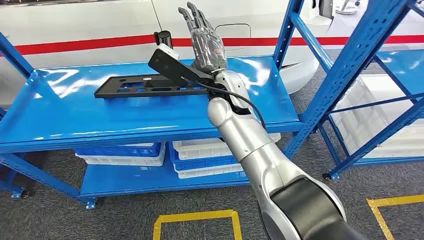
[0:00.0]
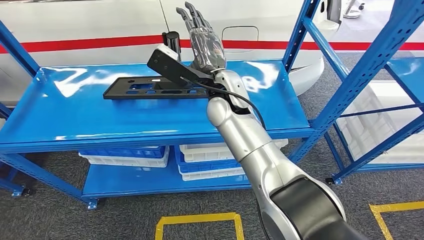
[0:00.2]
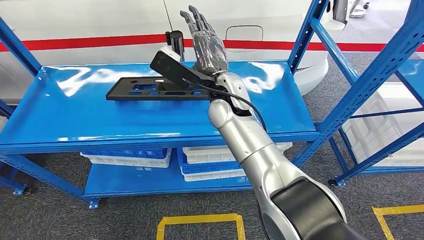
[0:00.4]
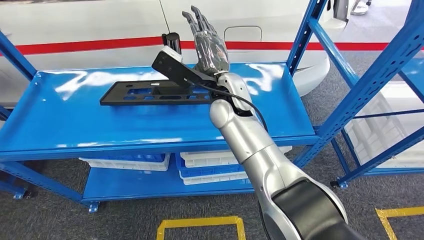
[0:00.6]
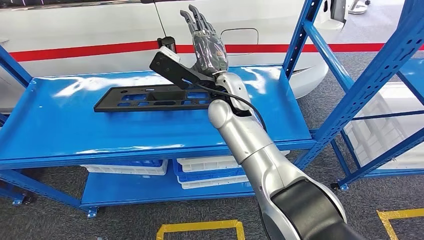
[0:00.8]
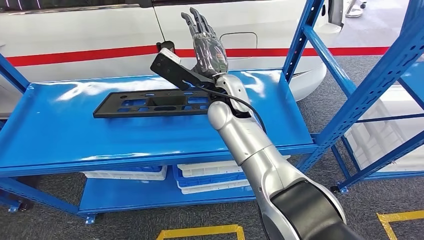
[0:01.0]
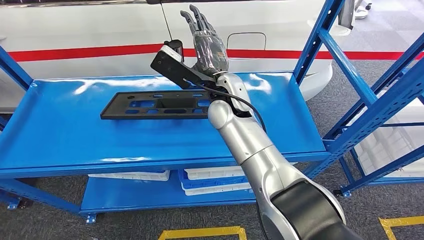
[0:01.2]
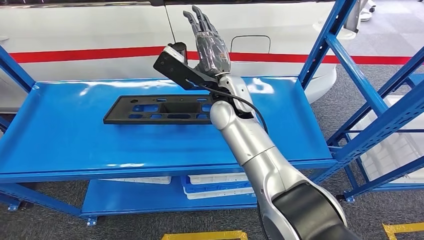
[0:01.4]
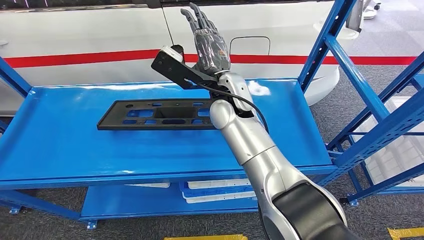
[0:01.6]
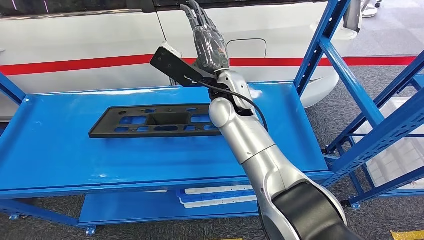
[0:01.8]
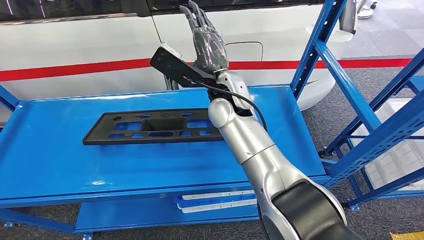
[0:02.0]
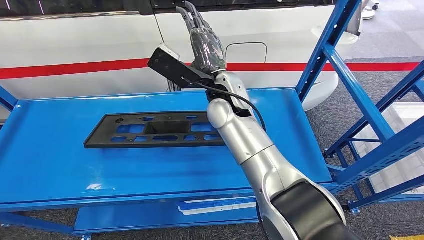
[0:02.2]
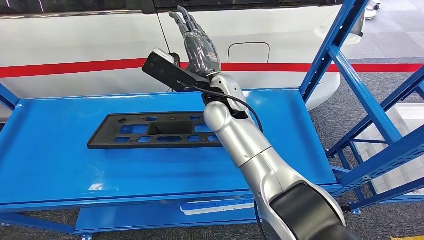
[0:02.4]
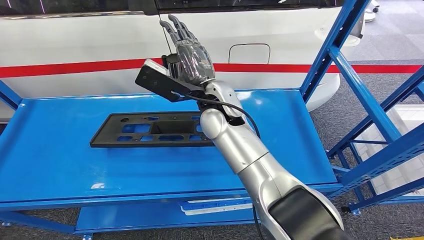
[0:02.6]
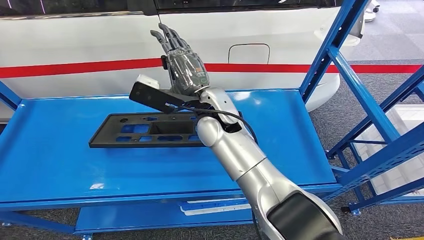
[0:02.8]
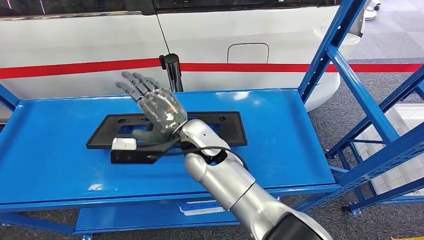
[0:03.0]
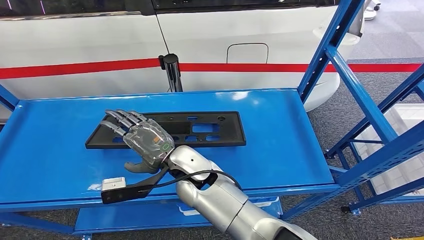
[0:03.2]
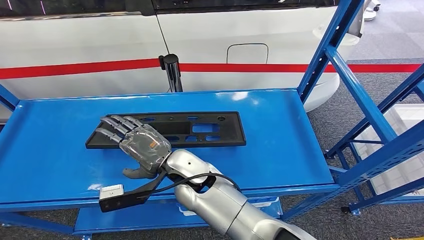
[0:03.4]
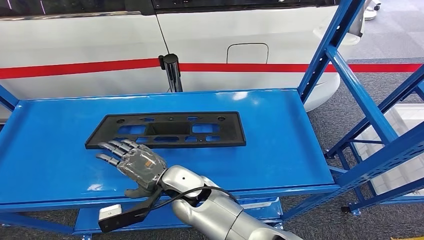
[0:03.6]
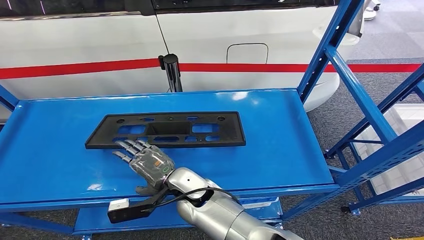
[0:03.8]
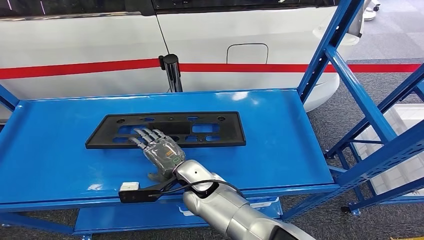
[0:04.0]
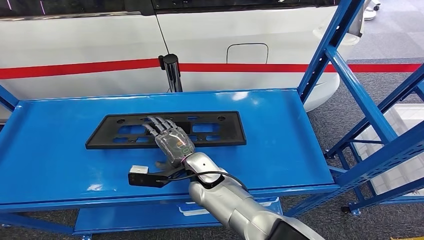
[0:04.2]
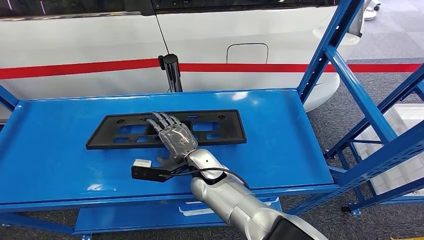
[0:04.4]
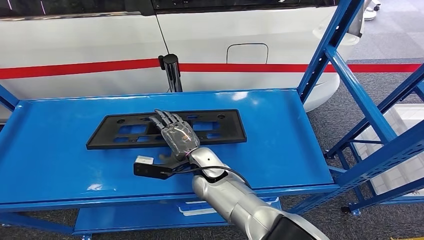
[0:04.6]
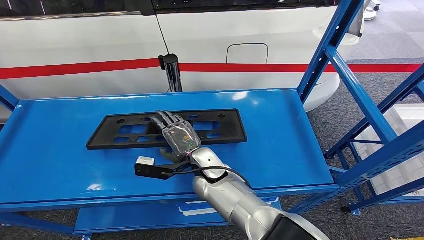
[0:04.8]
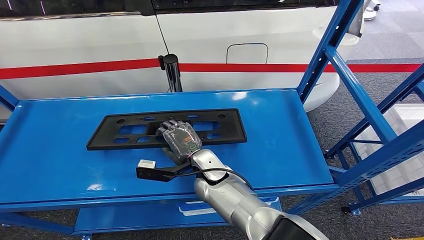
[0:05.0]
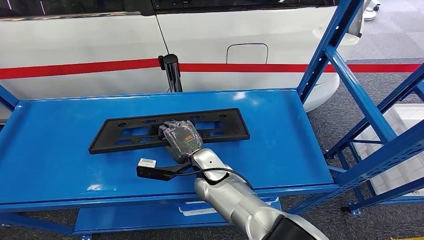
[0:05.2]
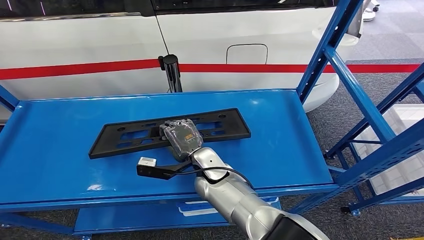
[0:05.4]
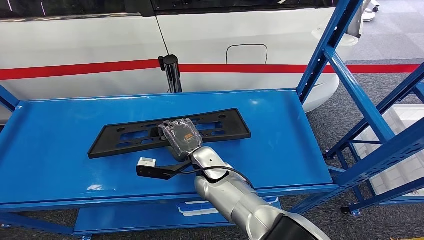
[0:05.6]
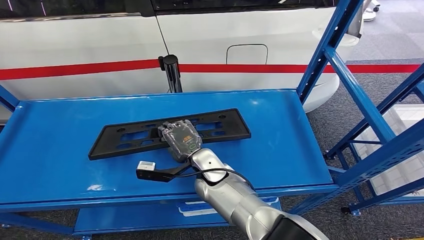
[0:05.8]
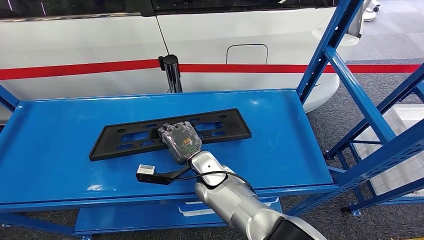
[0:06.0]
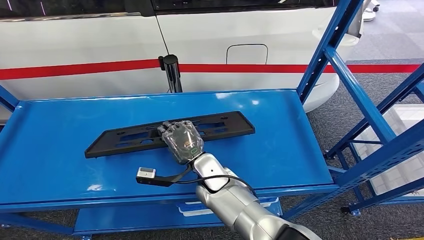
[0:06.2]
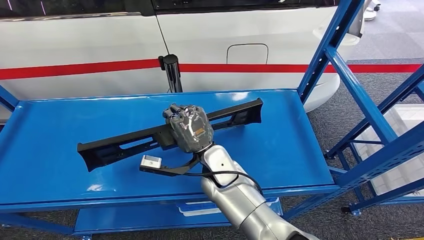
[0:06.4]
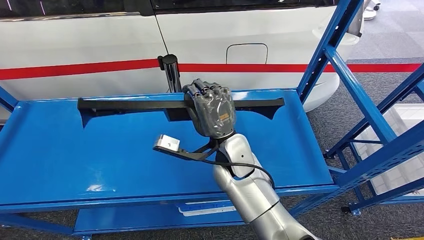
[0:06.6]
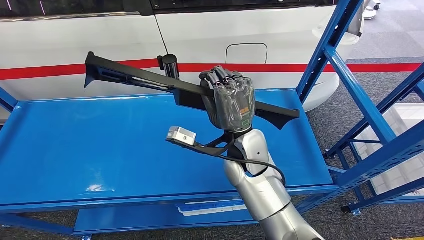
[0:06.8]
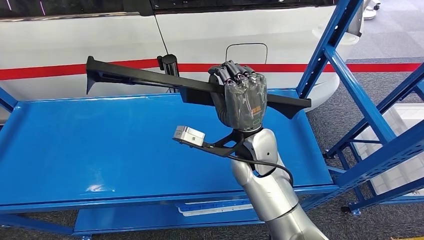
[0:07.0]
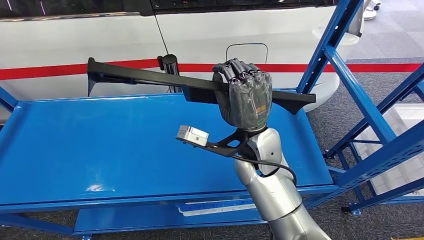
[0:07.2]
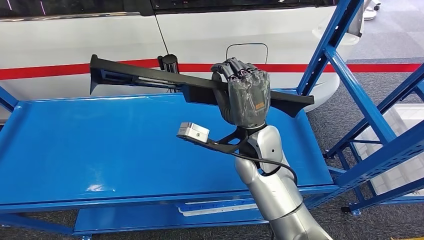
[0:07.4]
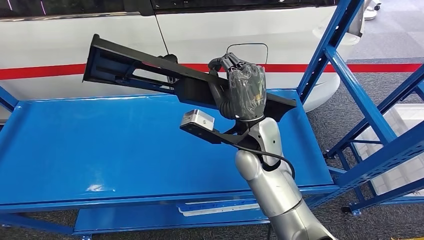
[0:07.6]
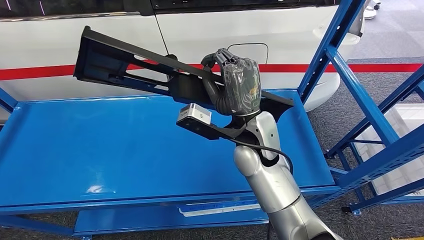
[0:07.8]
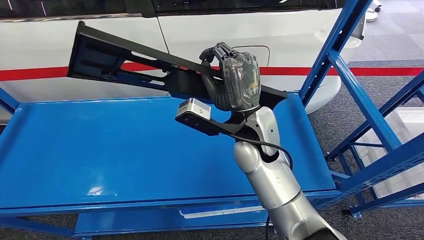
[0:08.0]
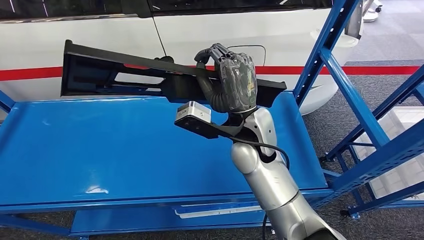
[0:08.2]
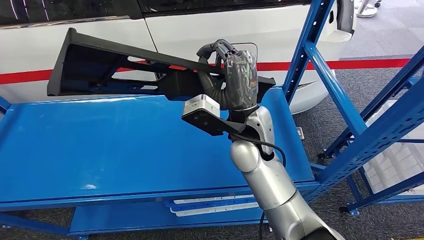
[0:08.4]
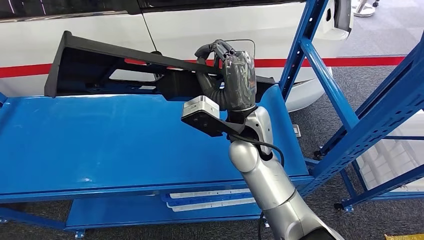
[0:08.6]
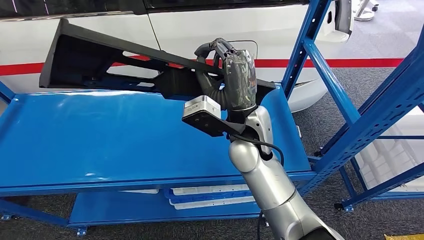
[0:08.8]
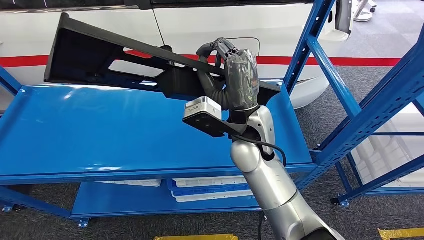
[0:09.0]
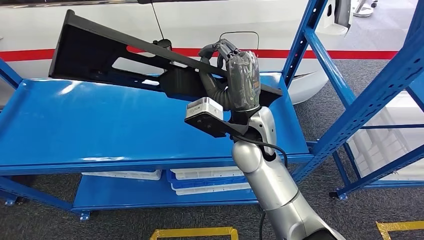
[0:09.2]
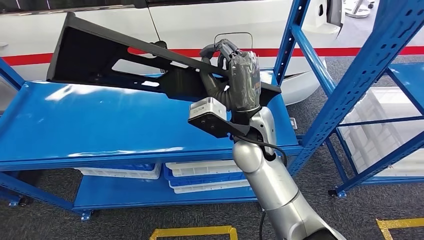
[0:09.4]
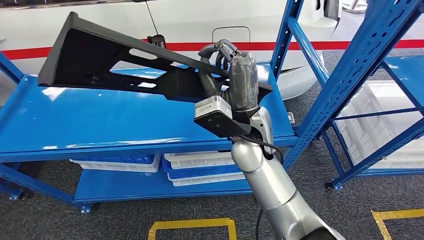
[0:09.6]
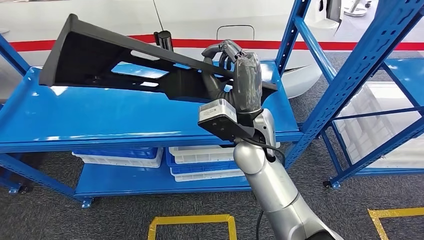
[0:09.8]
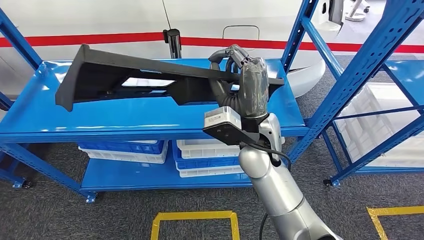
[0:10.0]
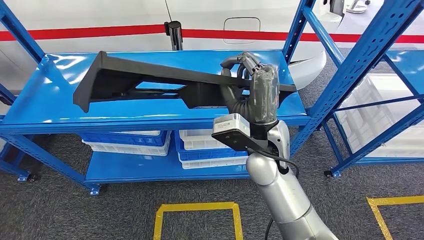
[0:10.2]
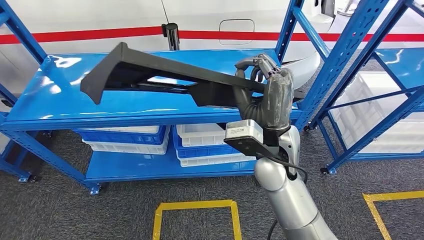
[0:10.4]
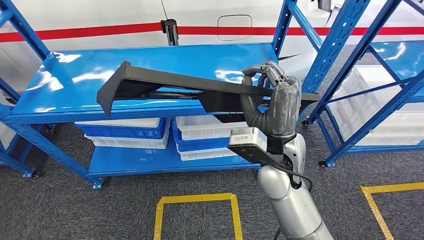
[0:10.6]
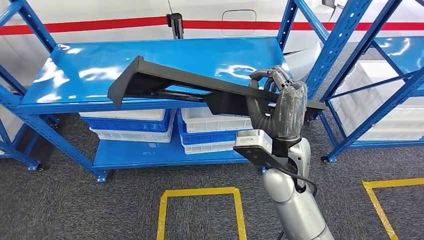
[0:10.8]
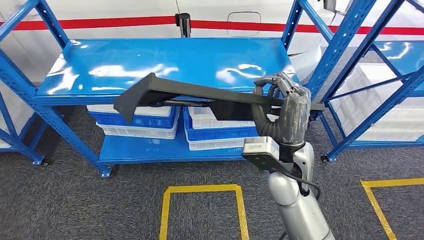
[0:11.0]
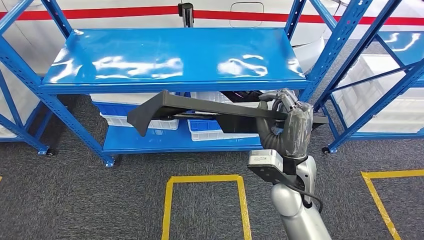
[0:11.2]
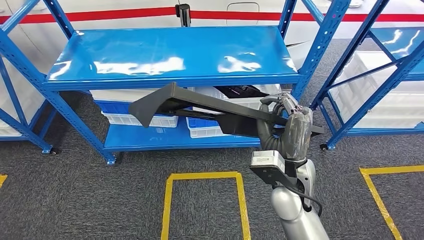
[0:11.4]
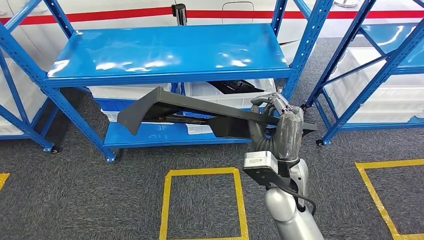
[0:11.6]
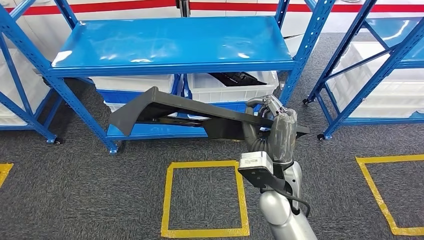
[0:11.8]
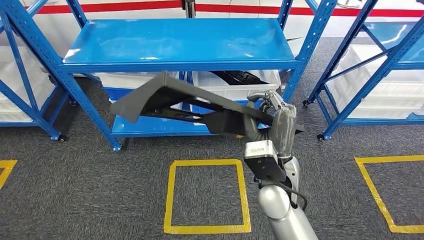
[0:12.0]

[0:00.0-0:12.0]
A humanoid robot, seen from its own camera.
Step, 0:00.0 to 0:11.4: Pick up the large material from the shelf.
0:03.0 to 0:04.4: The right hand is displaced downward by roughly 10 cm.

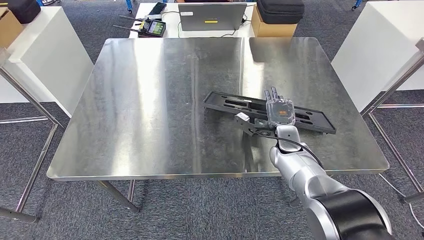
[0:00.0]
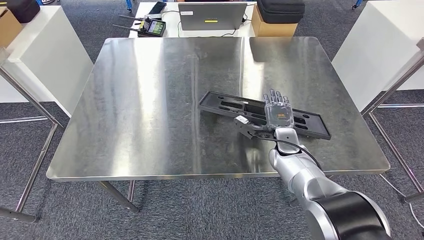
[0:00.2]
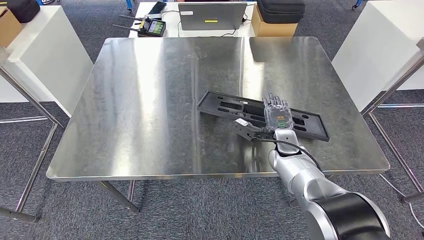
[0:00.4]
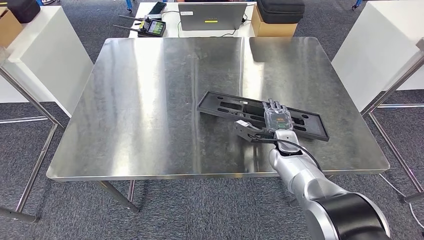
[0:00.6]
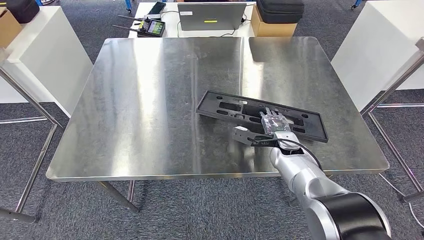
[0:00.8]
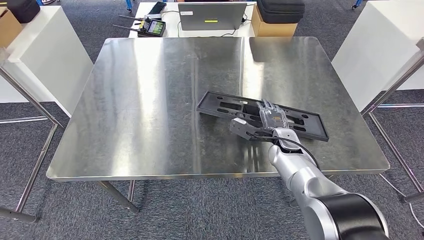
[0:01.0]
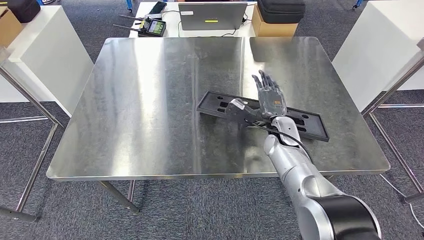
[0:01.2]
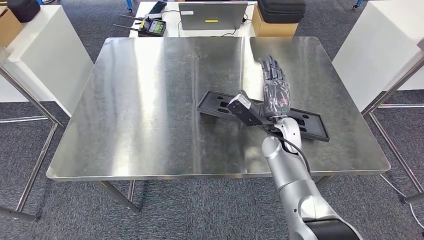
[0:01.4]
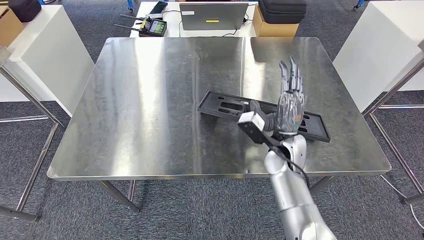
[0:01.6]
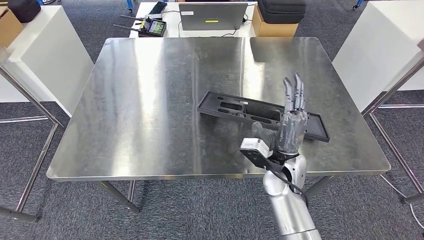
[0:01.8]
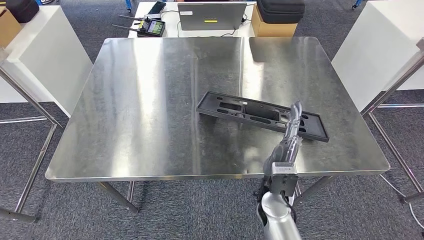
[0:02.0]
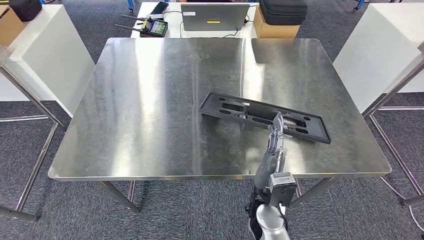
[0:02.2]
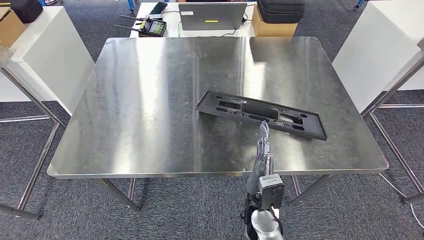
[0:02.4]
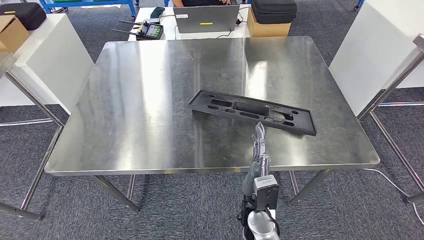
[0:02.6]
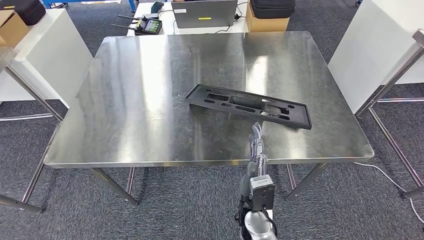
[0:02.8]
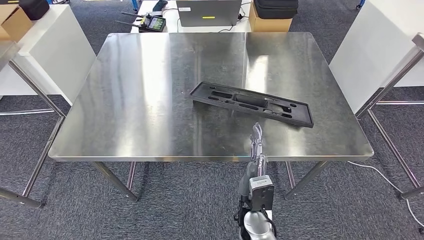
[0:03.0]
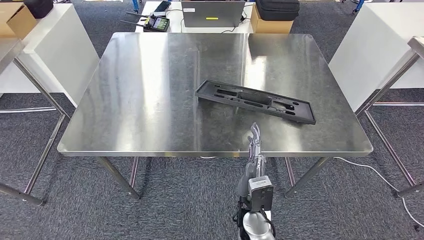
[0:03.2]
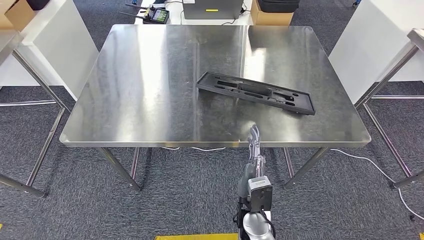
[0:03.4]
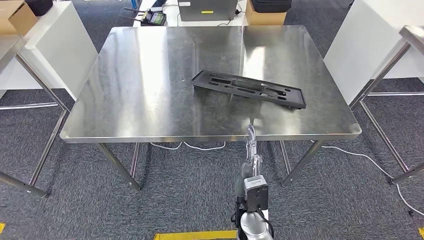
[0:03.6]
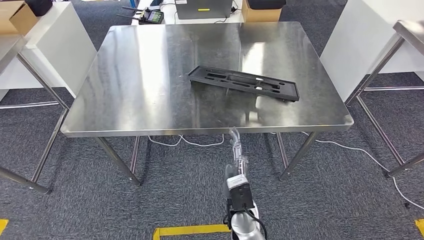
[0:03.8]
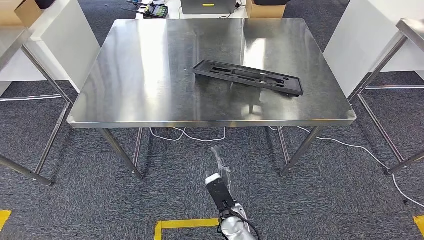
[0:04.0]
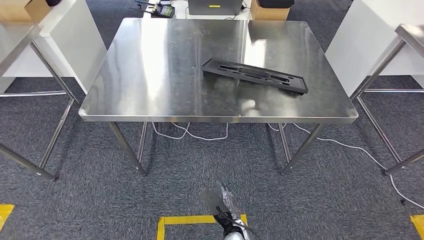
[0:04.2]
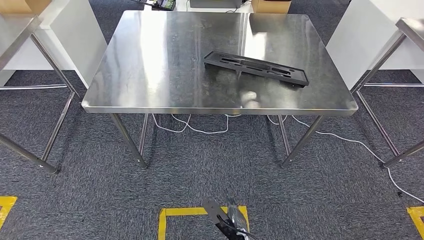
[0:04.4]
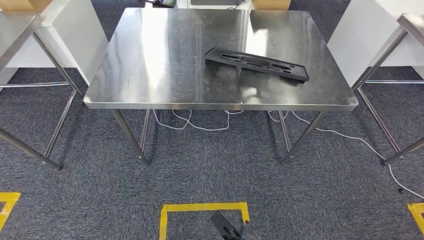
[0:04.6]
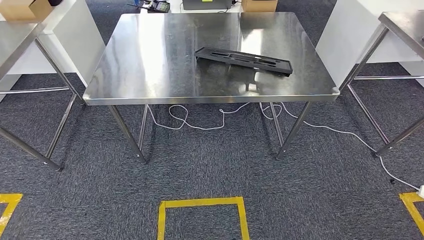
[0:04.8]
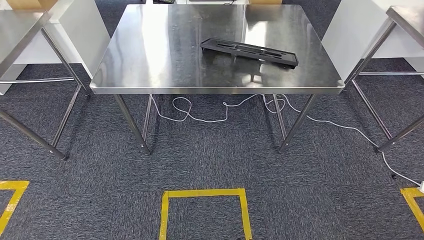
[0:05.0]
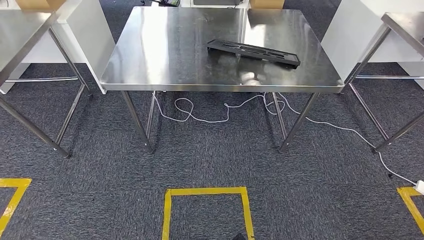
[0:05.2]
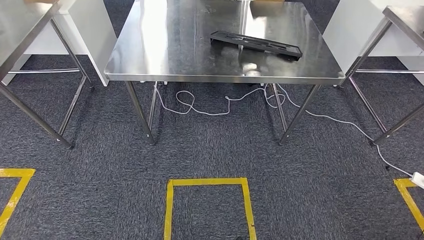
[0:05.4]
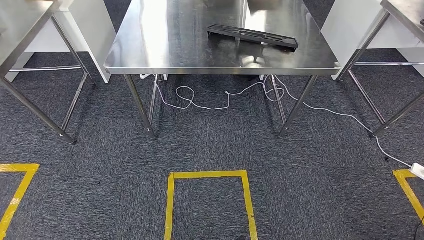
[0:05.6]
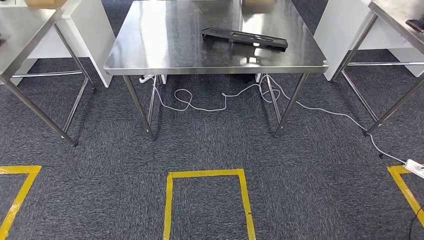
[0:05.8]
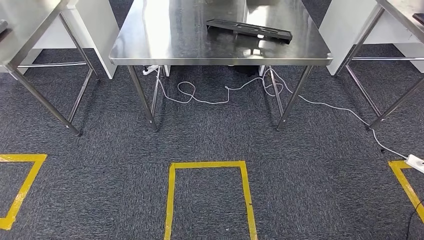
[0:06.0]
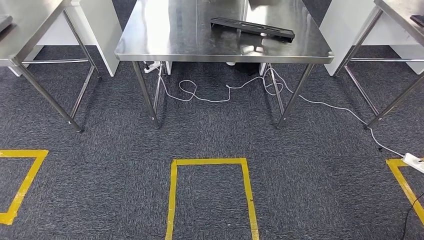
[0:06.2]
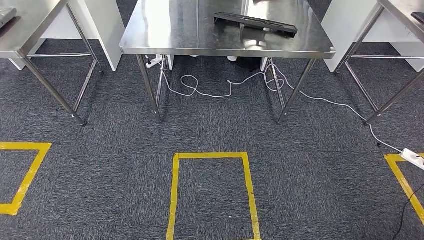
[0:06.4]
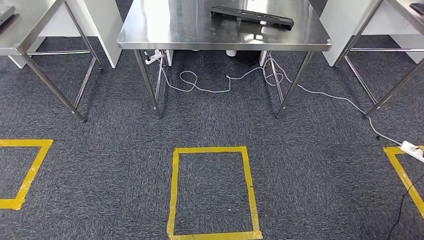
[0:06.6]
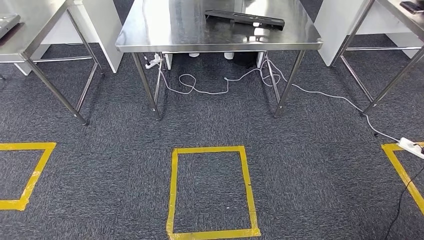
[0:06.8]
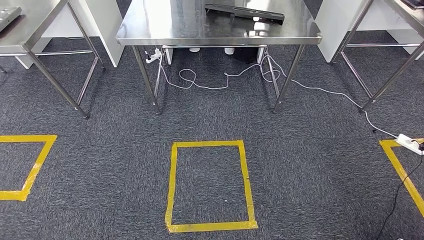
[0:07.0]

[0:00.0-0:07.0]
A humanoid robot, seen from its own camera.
Step, 0:00.0 to 0:06.0: Insert the large material into the corresponding slot on the workbench.
0:00.0 to 0:01.4: The right hand heads upward, covering about 5 cm.
